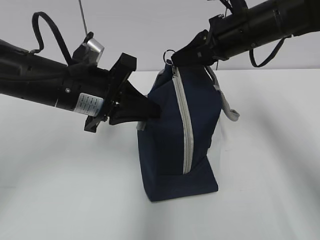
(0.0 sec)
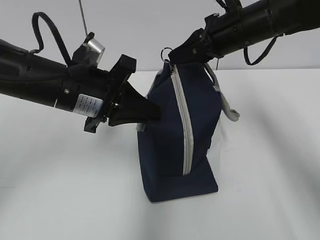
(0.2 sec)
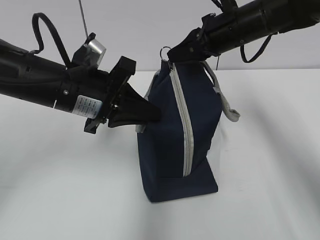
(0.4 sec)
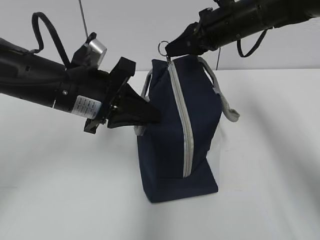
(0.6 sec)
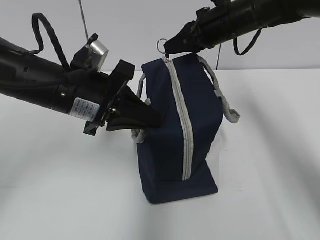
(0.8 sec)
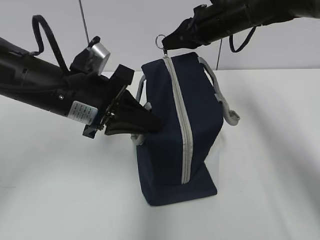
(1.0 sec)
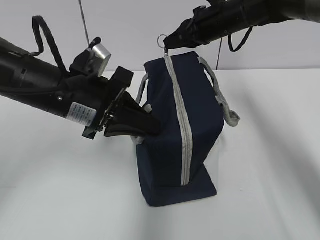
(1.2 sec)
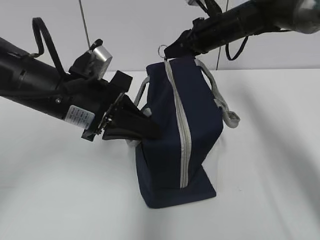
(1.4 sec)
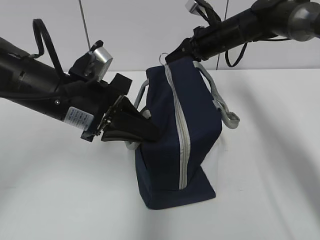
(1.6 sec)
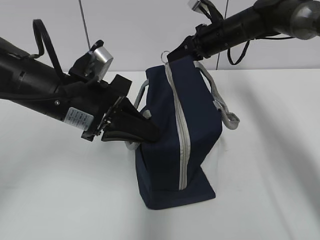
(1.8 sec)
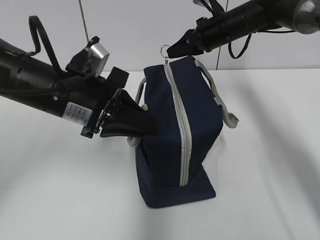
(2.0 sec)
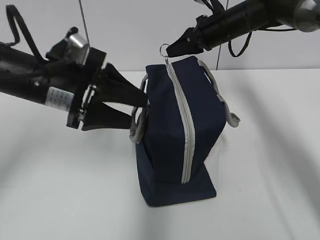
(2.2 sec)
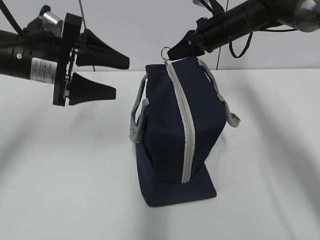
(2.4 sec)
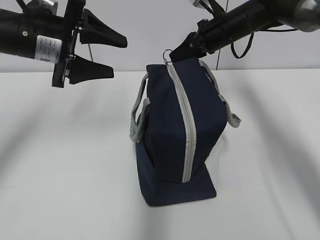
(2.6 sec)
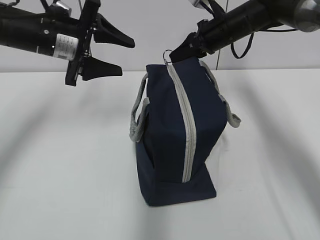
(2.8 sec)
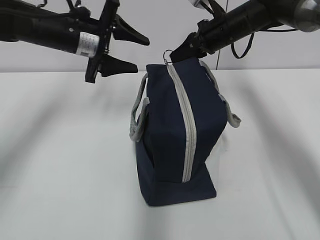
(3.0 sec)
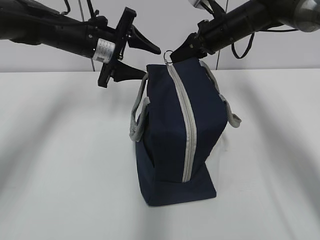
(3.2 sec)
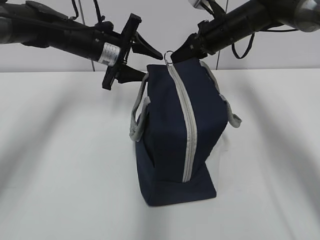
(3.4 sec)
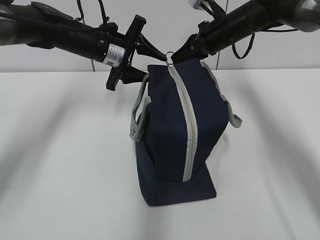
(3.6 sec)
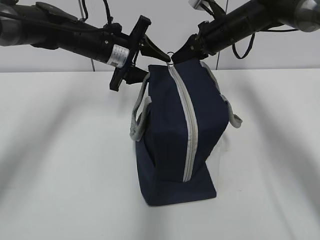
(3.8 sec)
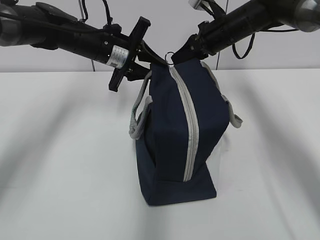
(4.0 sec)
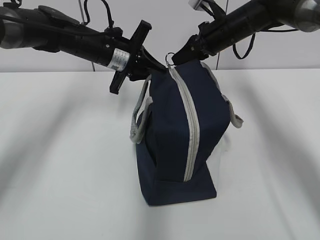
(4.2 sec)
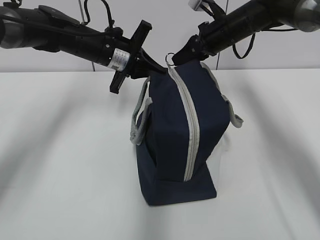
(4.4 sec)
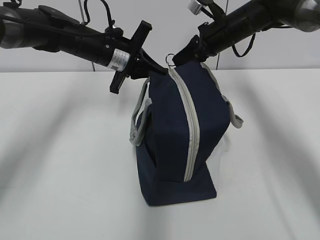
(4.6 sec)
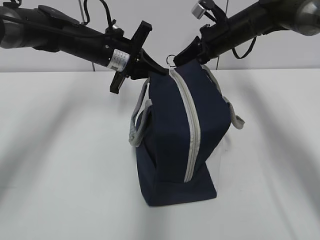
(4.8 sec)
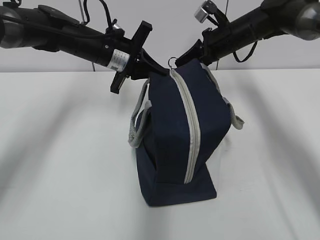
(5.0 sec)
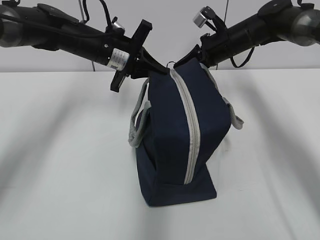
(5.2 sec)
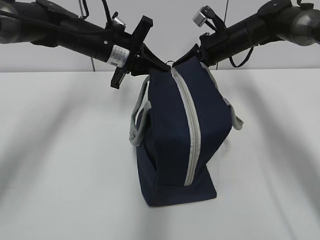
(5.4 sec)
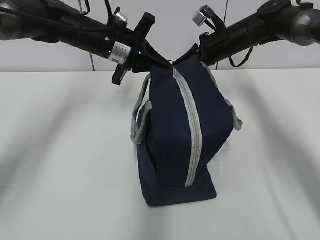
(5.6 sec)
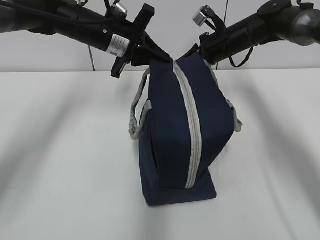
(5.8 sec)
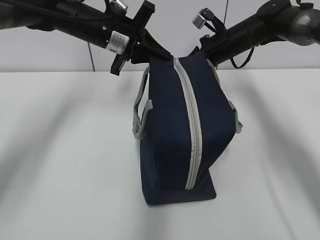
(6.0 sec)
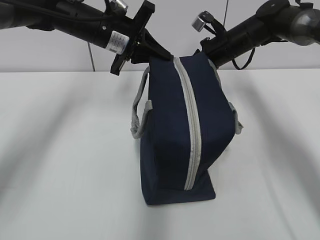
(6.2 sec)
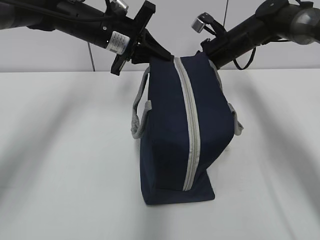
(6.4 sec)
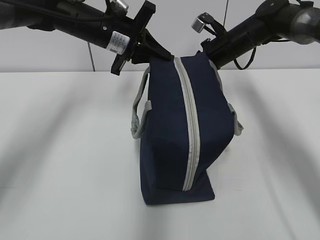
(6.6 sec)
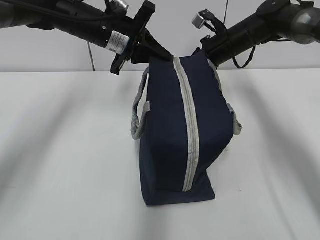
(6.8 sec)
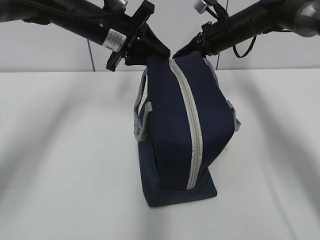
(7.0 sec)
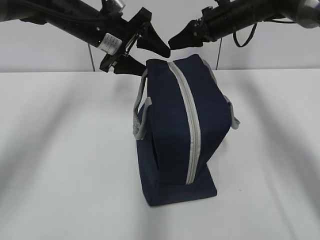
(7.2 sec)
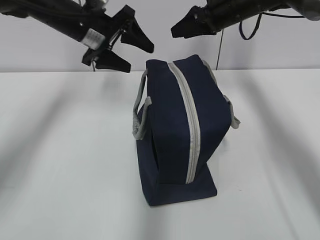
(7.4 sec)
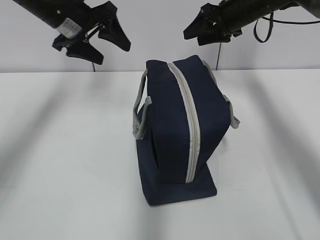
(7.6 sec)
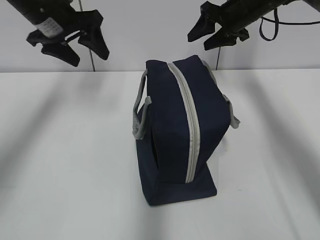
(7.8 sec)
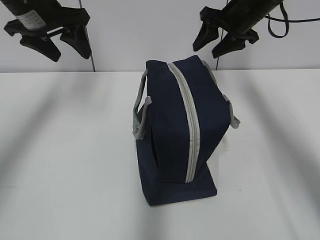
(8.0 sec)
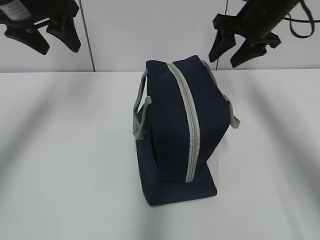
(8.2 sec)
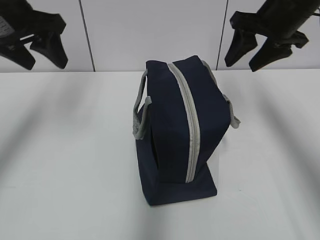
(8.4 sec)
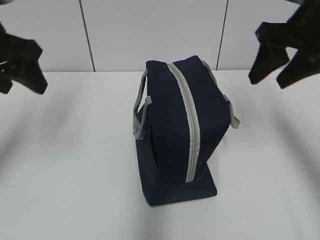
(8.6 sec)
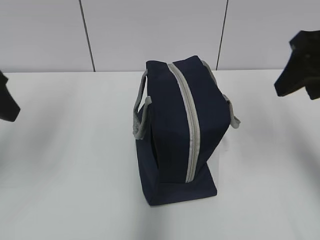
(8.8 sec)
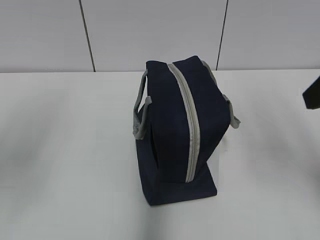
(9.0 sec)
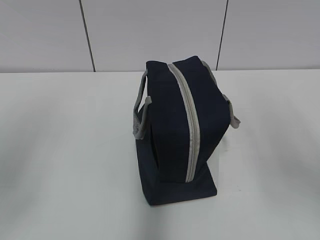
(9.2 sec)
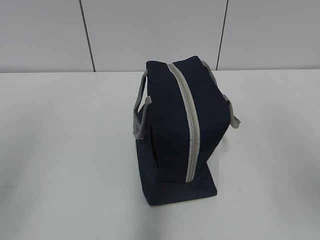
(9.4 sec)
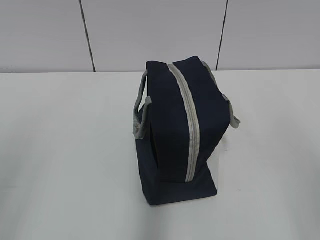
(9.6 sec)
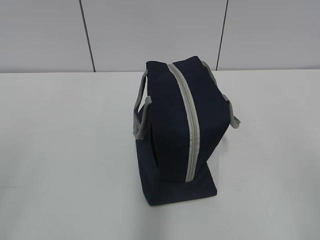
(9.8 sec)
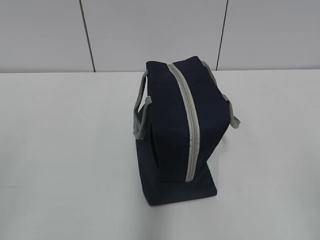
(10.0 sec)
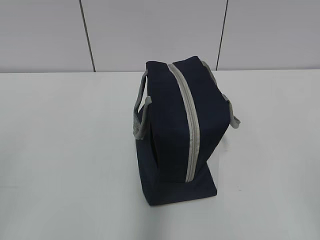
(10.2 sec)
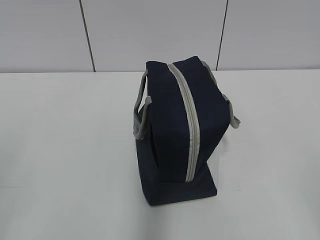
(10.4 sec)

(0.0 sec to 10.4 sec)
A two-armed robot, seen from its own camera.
Step, 2.2 sec - 6.8 sec: Pull the zipper with your right hand.
0.0 sec - 1.4 sec: The right gripper heads forward, covering approximately 10 cm.
1.4 sec - 3.0 sec: The left gripper heads forward, covering approximately 15 cm, and opens.
3.0 sec - 4.4 sec: The left gripper changes place by approximately 5 cm, and closes up.
4.4 sec - 6.0 sec: The grippers move only a little.
6.0 sec - 7.4 sec: The right gripper heads upward, covering roughly 5 cm, and opens; the left gripper opens.
7.4 sec - 9.0 sec: The right gripper moves backward, roughly 30 cm; the left gripper is displaced backward and to the left by about 30 cm.
9.0 sec - 10.4 sec: The grippers both shift backward by approximately 20 cm.
